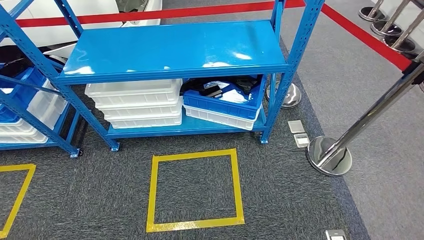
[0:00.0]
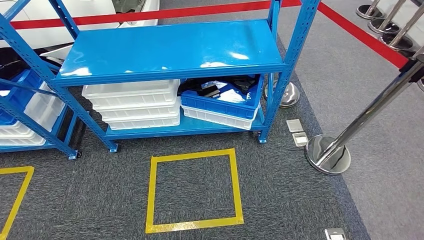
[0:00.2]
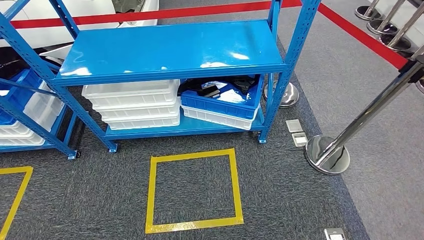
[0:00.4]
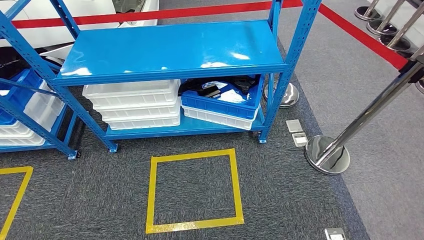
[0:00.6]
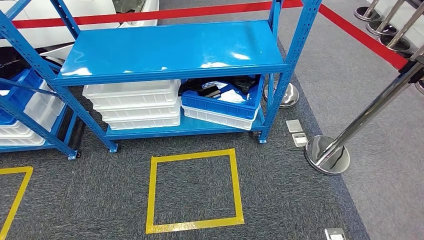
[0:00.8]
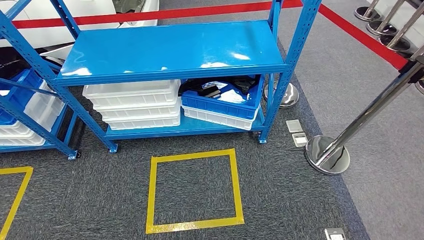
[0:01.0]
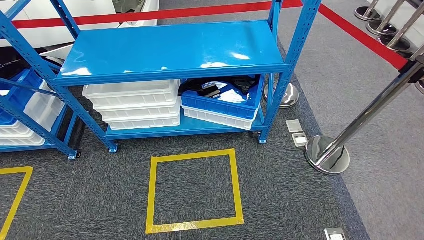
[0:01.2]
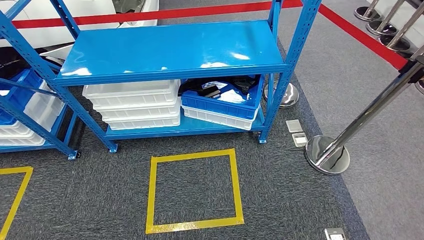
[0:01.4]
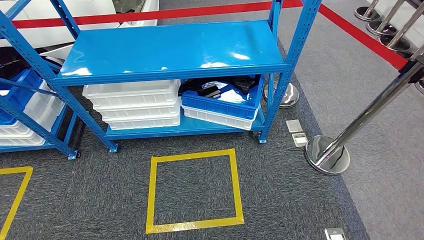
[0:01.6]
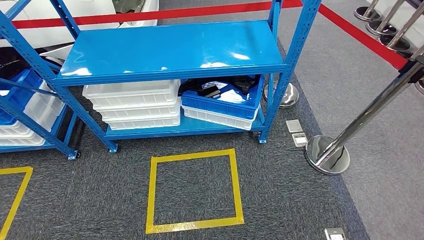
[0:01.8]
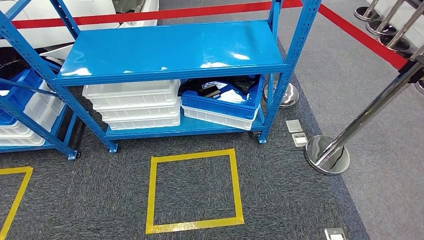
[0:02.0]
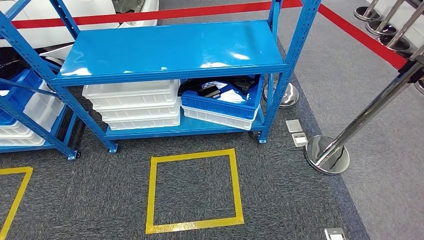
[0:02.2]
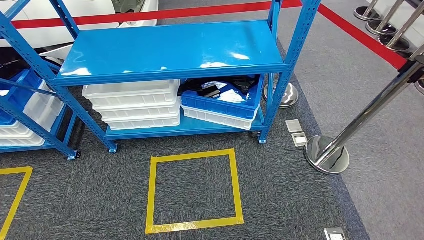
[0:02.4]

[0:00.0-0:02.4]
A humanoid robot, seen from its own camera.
Step, 0:00.0 to 0:02.4: Return to the initial position at the shelf.
0:00.0 to 0:01.2: The hands stay close to where they were, moving slightly.
